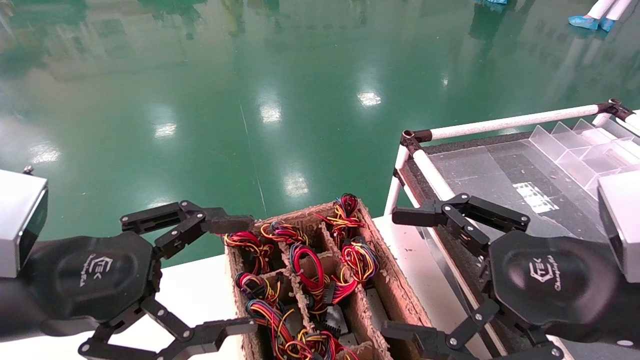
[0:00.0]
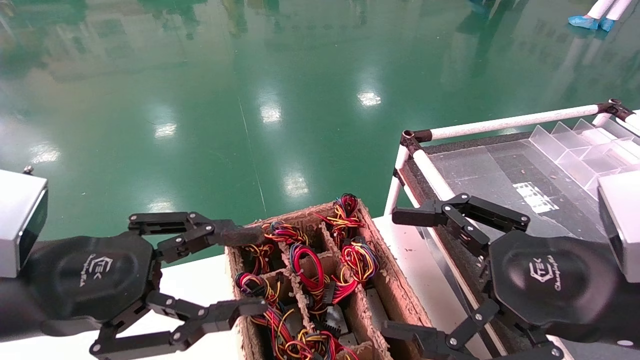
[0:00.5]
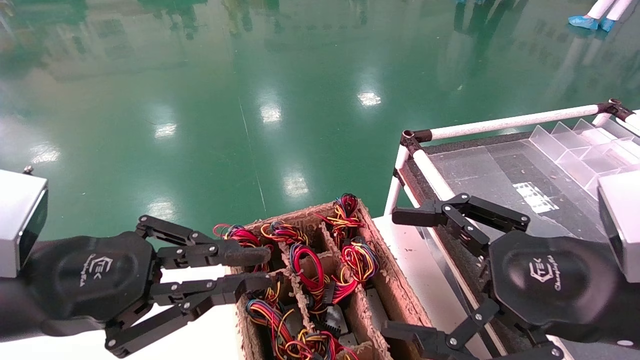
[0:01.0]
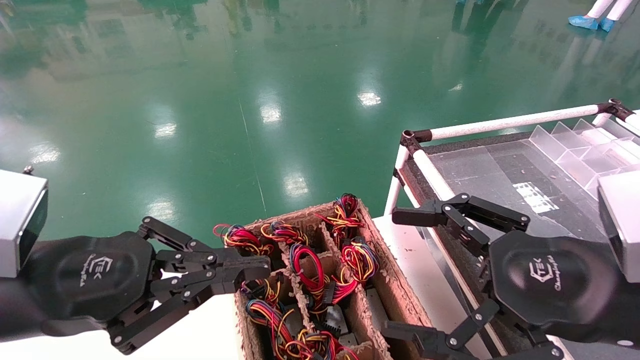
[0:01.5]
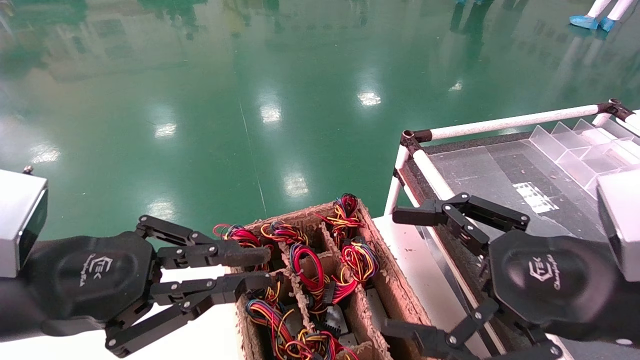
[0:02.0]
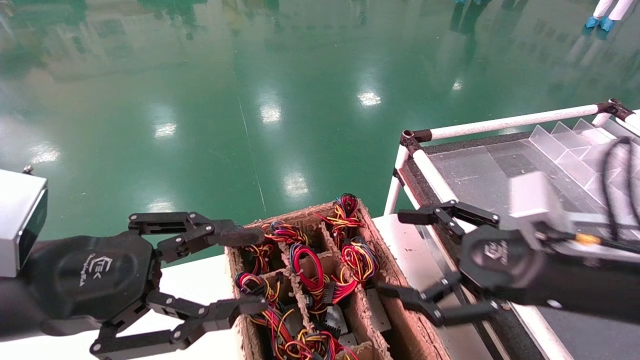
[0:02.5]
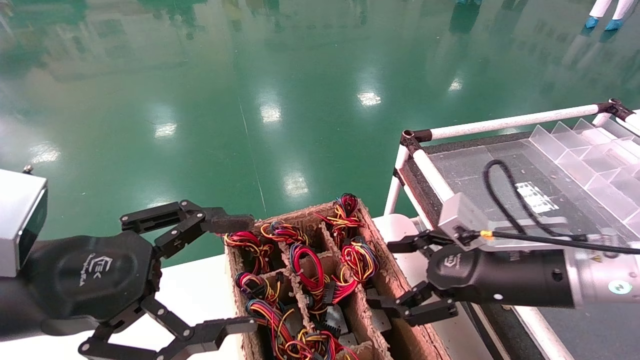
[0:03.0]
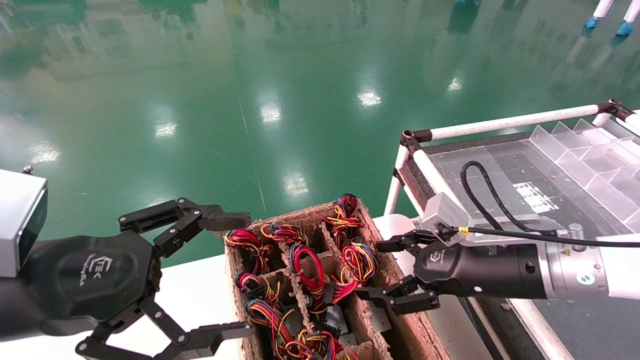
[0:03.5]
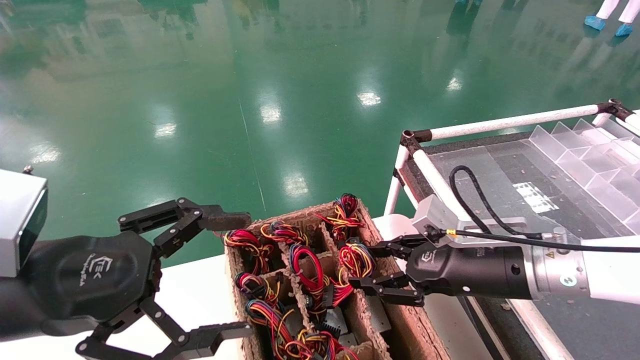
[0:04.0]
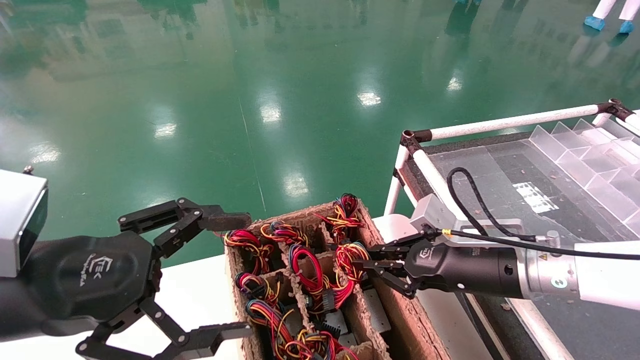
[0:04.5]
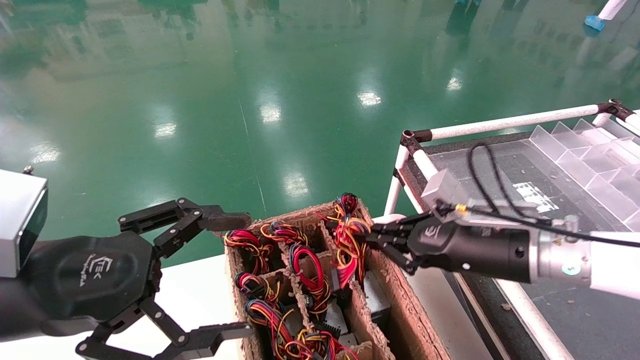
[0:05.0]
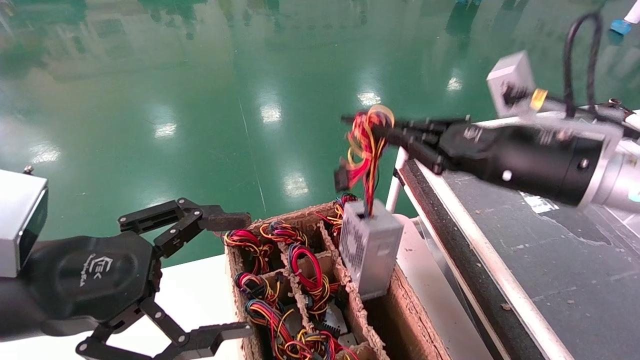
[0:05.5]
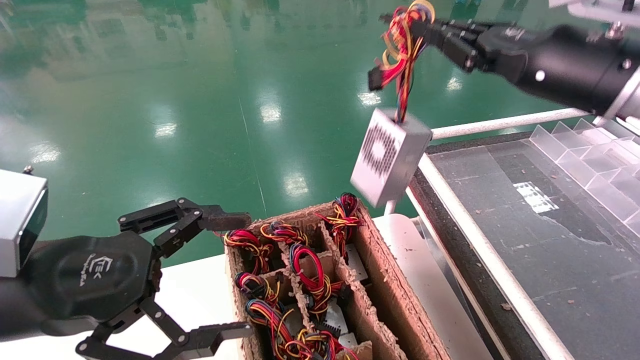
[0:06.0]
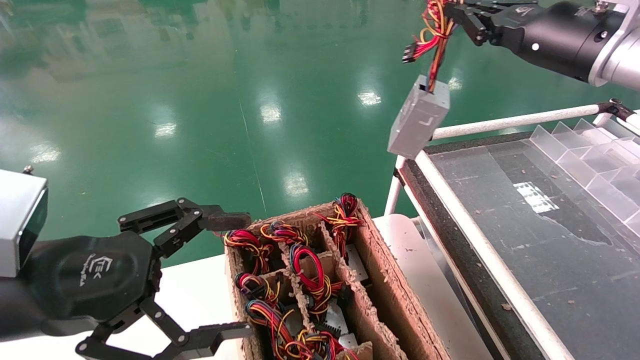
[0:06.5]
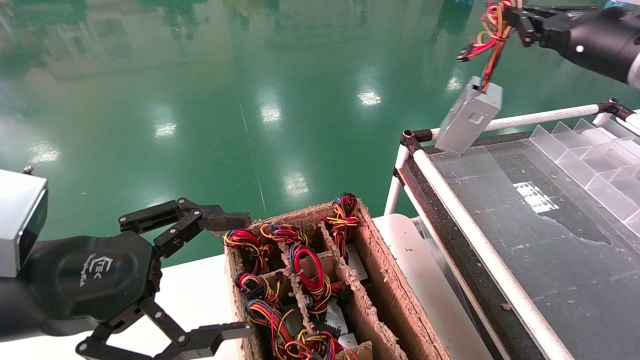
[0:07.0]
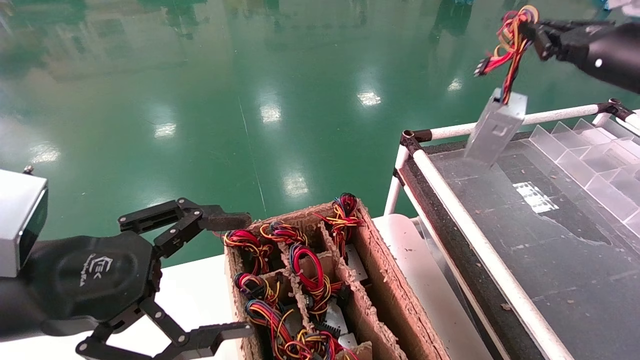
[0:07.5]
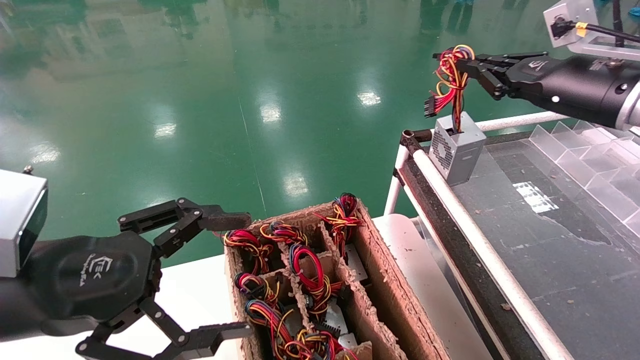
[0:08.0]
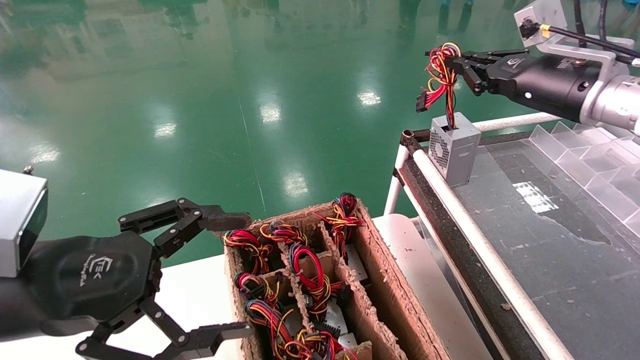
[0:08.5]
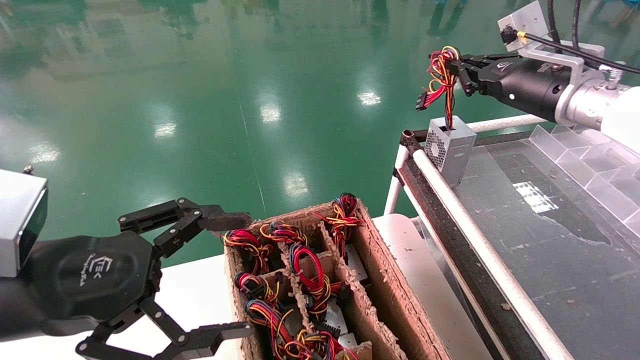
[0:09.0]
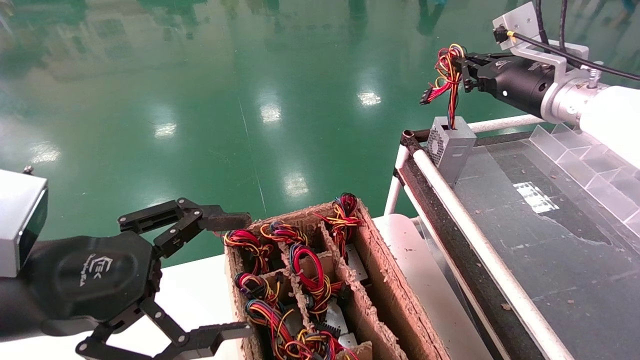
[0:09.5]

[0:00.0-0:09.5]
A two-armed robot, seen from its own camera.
Step, 0:01.5 to 0:04.5: Grab and lift the power supply from the large box.
0:00.0 to 0:02.0: The left gripper closes its fingers.
0:02.0 to 0:04.0: The left gripper opens up; the right gripper goes roughly 15 cm forward and downward, and closes.
0:04.0 to 0:05.5: The right gripper moves upward, some 15 cm, and closes up.
0:05.5 to 0:07.5: The right gripper moves to the right, upward and forward, roughly 20 cm.
0:07.5 to 0:09.5: The right gripper goes roughly 10 cm to the left and forward.

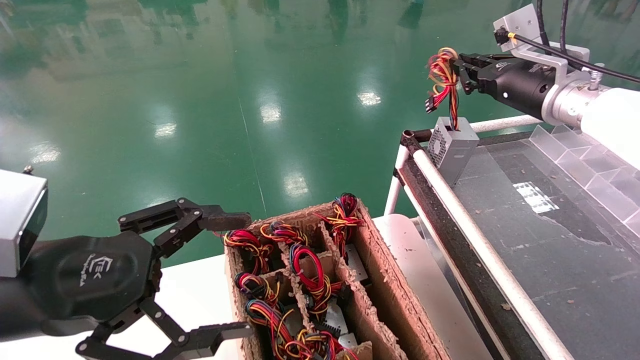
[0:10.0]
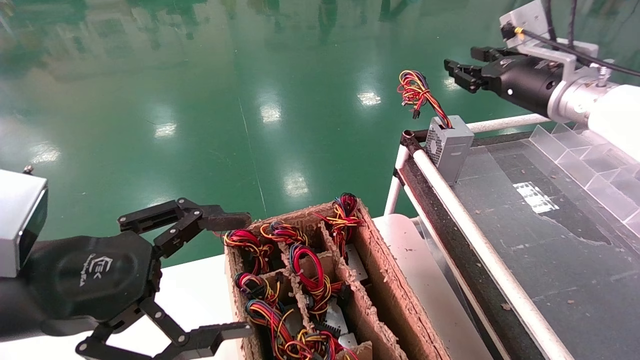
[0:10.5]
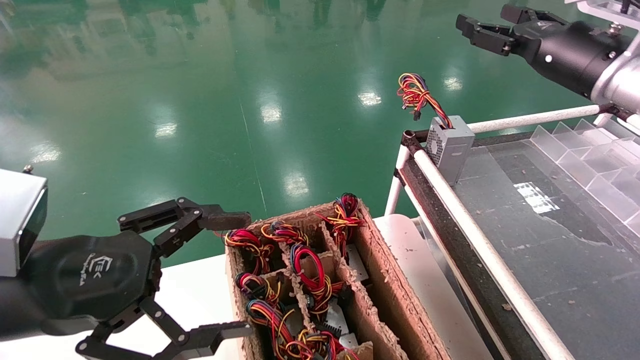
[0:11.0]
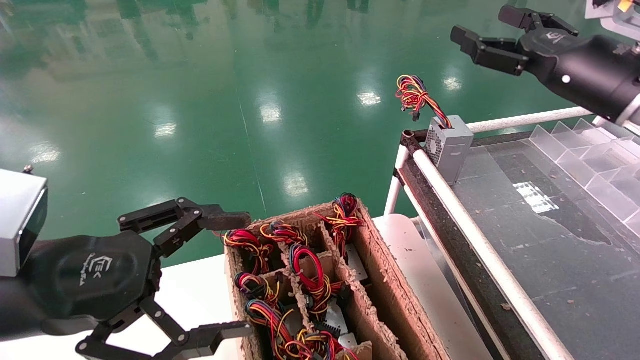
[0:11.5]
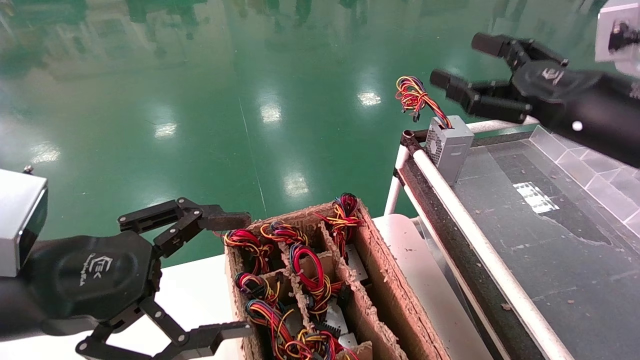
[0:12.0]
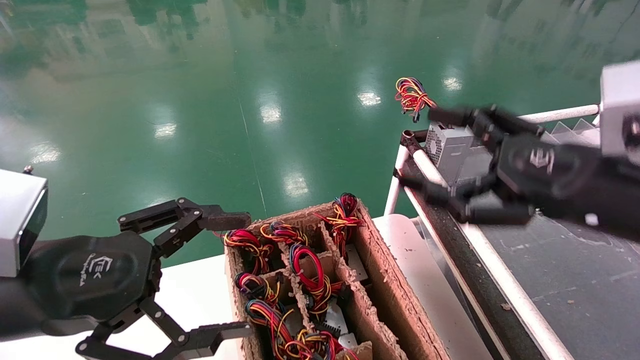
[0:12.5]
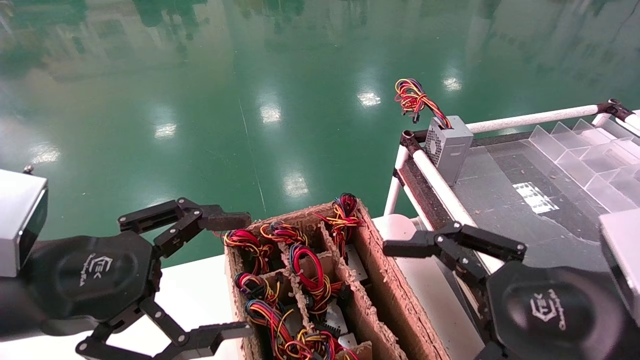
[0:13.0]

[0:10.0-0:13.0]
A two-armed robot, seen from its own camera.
0:10.0 to 0:11.5: The right gripper is displaced backward by roughly 10 cm, and opens up.
0:11.5 to 0:13.0: The right gripper is displaced backward and downward by about 25 cm.
